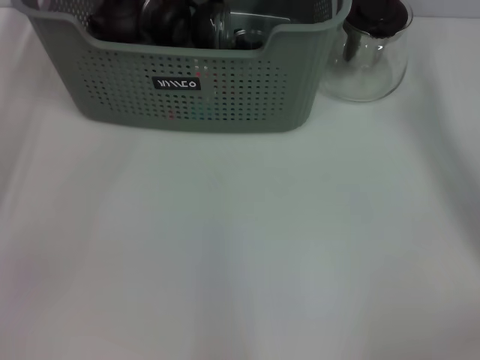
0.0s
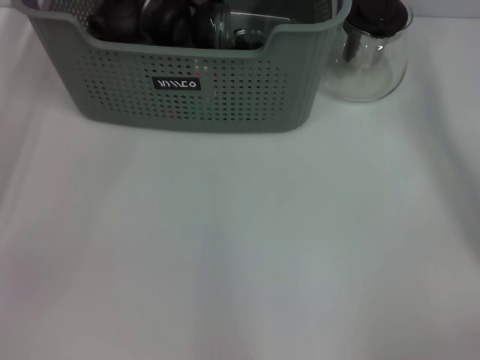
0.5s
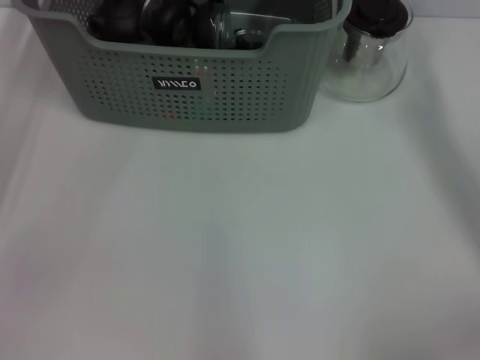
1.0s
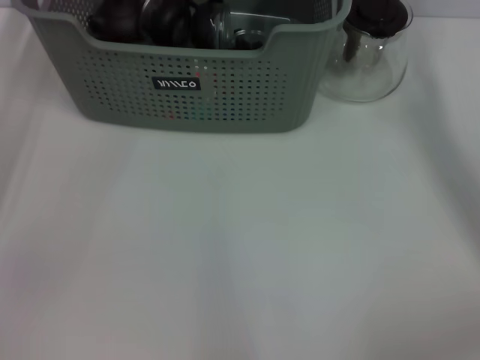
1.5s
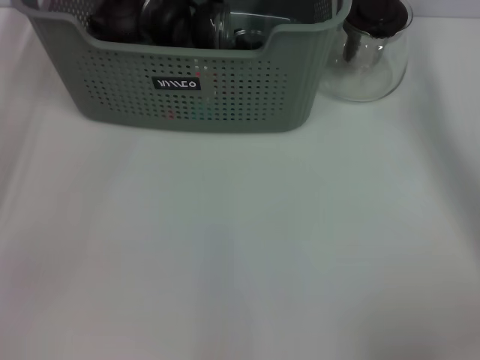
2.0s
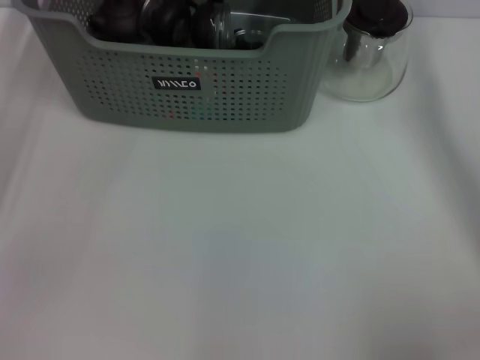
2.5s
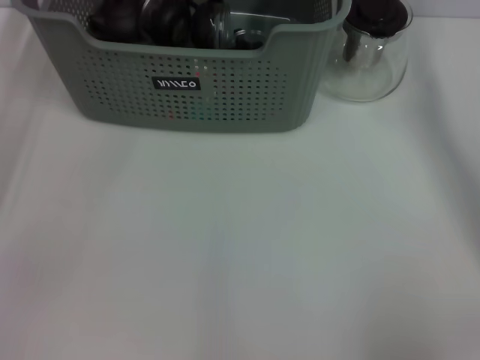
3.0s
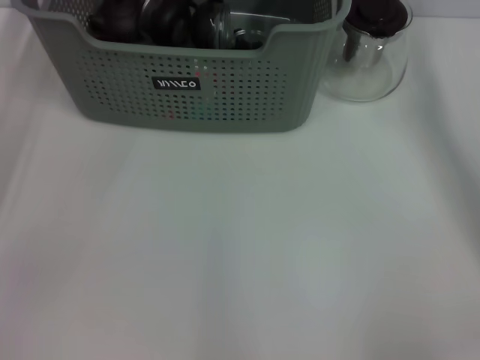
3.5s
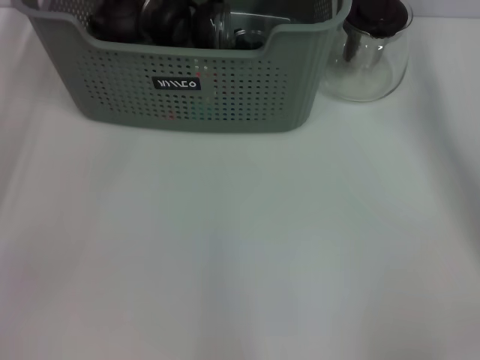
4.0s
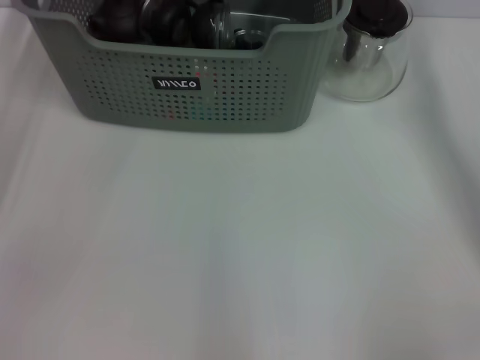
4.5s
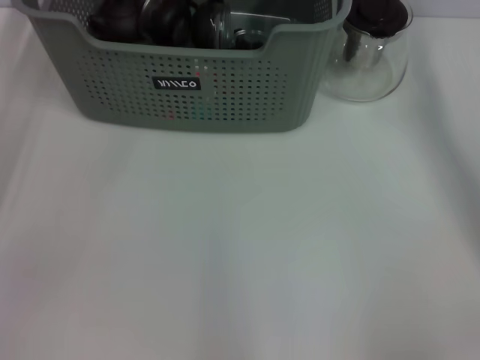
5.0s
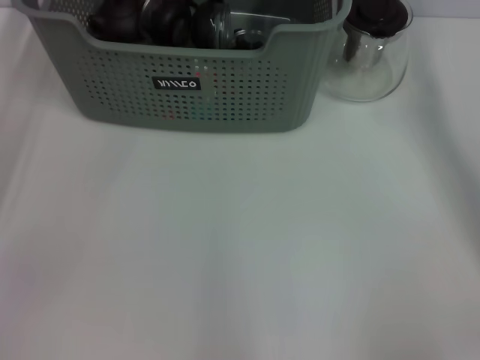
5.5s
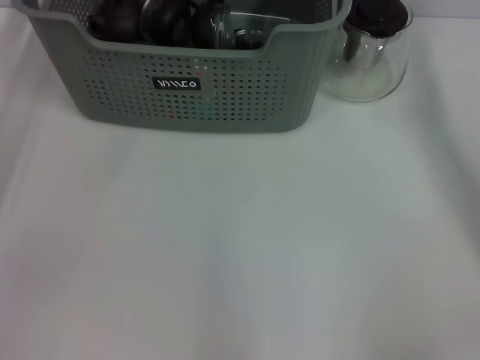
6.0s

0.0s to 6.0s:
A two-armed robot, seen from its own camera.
Task of the whole recording: pick up the teacup on the table and place it into the storage bin, pick up the block on the table and place it into the storage bin.
0.0s to 6.0s: The two grippers keep their place.

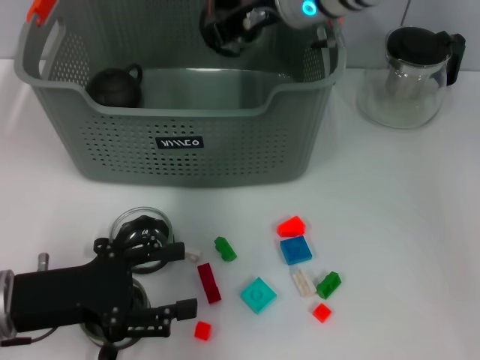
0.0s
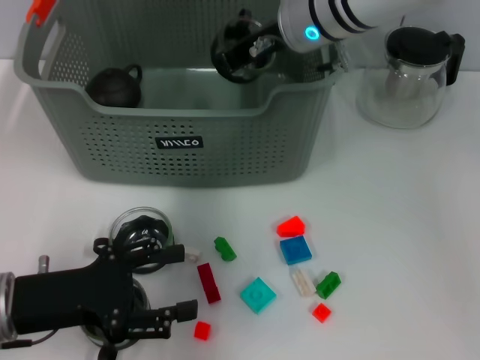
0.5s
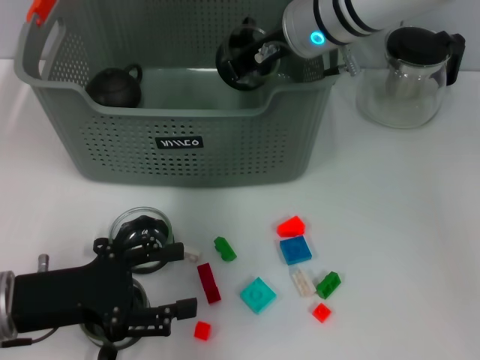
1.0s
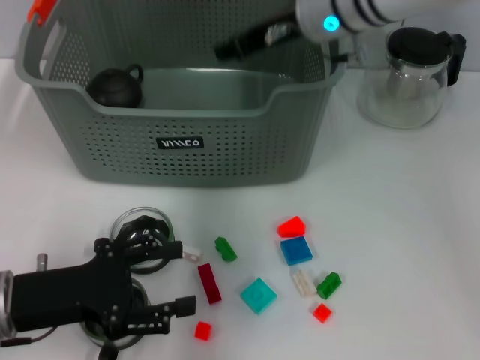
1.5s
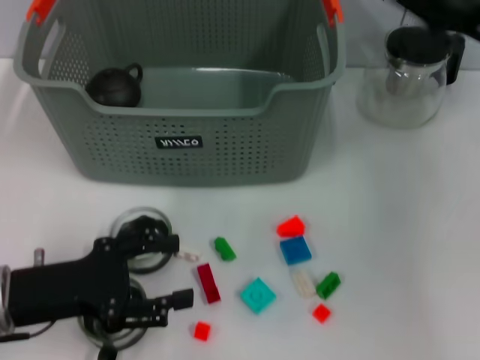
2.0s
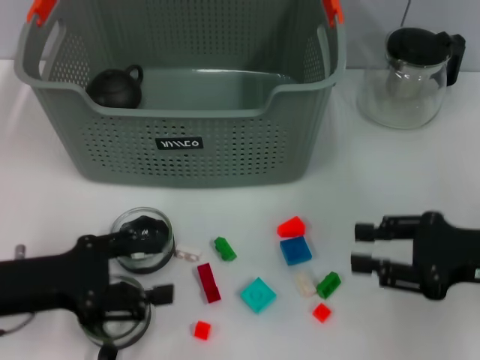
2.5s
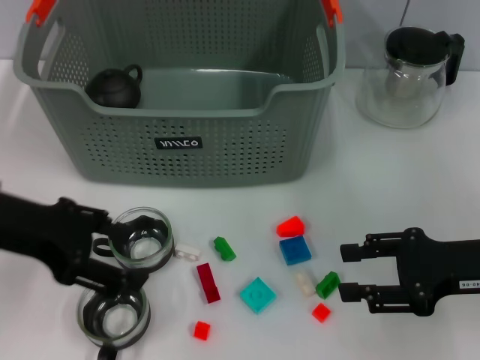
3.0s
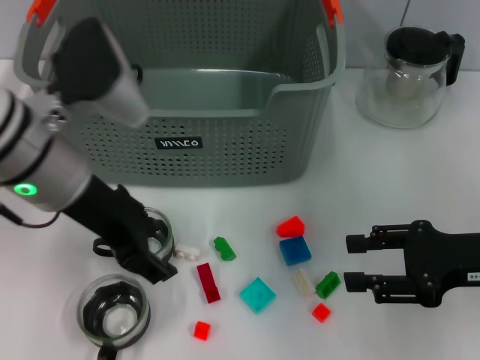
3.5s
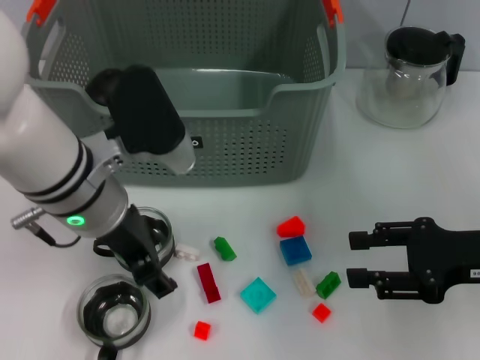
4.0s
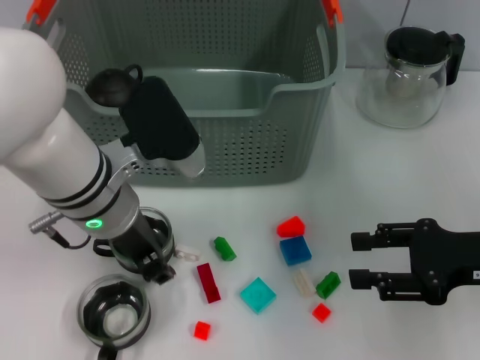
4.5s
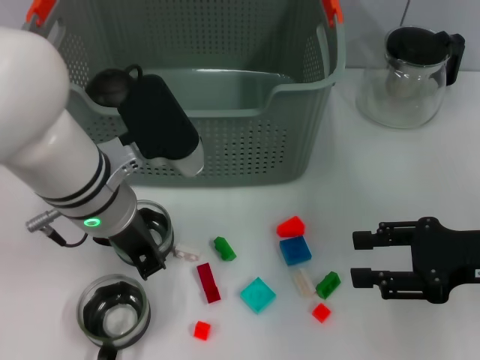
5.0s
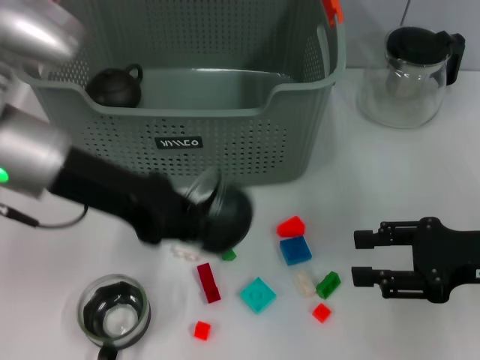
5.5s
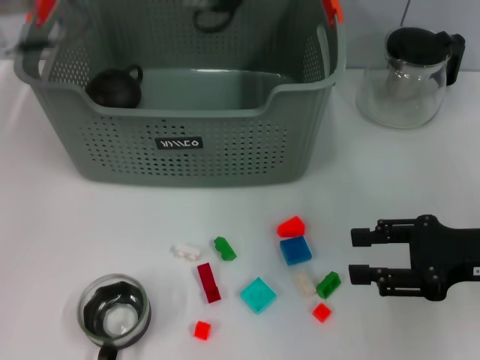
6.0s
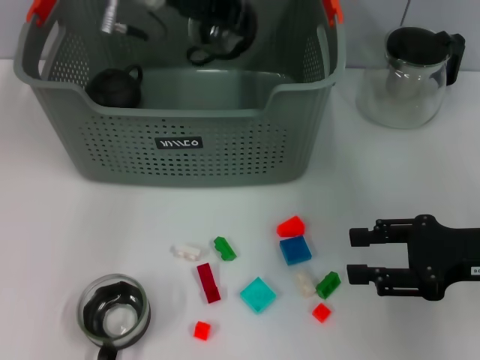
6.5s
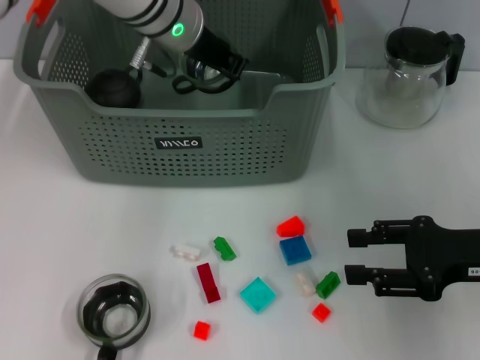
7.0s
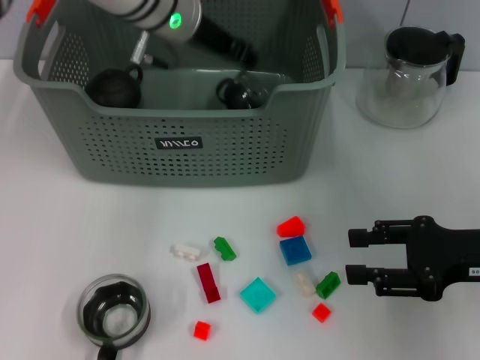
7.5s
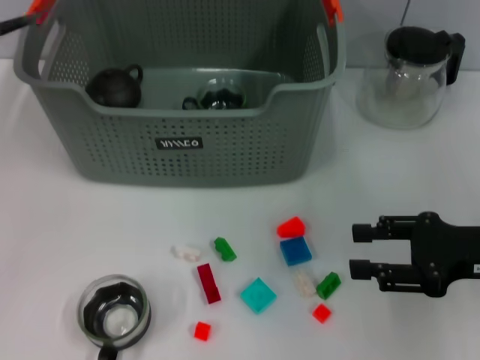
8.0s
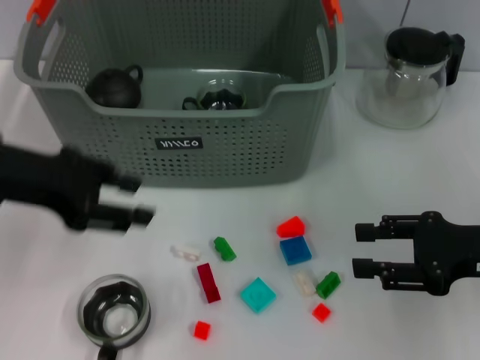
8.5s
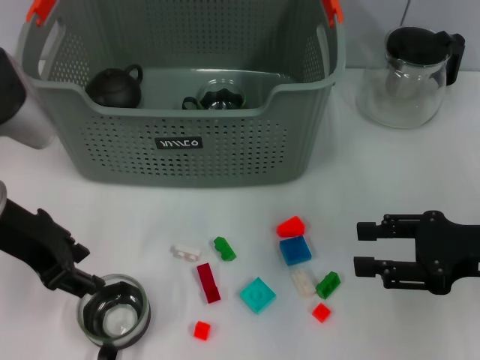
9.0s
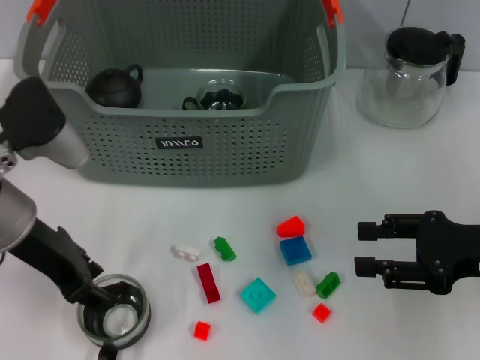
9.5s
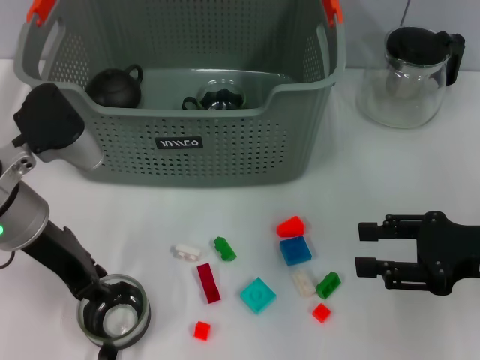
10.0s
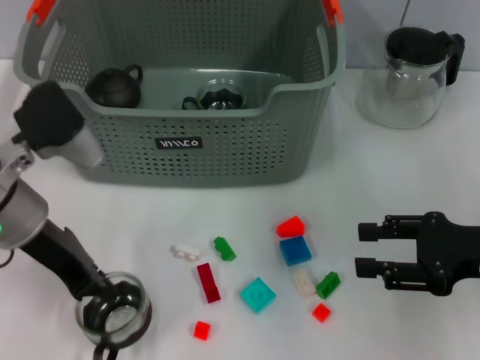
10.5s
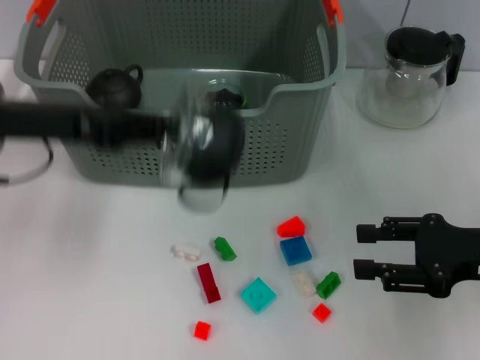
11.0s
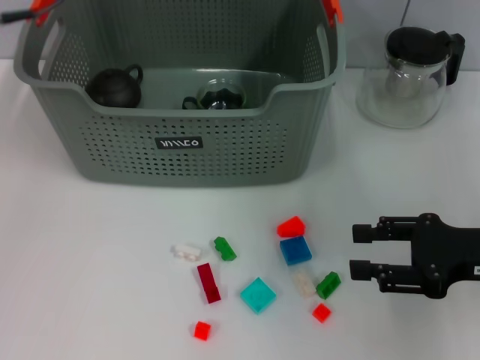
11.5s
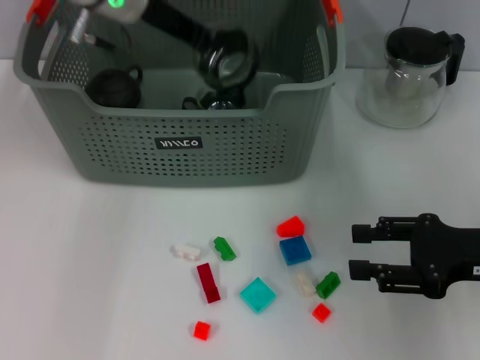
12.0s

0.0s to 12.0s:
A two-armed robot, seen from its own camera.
Task of the whole recording: pick up the teacup on the table and place it into the storage bin, pick up the block on the table and place it into the storage bin.
Step, 2.0s to 4.5s: Grasp the cup with left gripper.
Step, 5.5s to 7.5s: Place the cup in the storage box with left gripper.
Step, 8.0s to 10.0s: Grasp the cup with left gripper.
0.0s to 2.0s: The right gripper shifts approximately 25 cm to the right and backward, and opens its fingers.
2.0s to 4.0s: The left gripper shifts approximately 15 cm to the right, upward and forward, while the right gripper heads downward and backward, covering roughly 10 cm.
4.0s to 6.0s: The left gripper shifts about 15 cm upward, forward and to the left, and closes.
6.0s to 8.0s: The left gripper moves some 10 cm to the right and comes back, and opens its fingers.
8.0s to 10.0s: The left gripper goes some 15 cm downward.
10.0s to 12.0s: The left gripper travels forward, upward and to the right by approximately 20 cm, and closes its fingers.

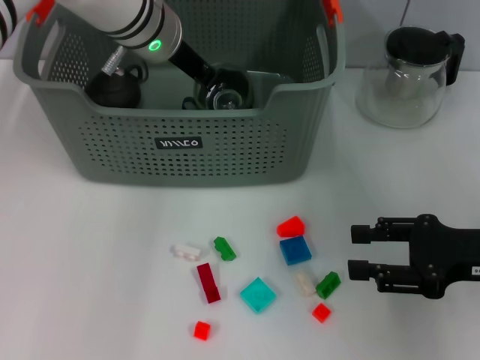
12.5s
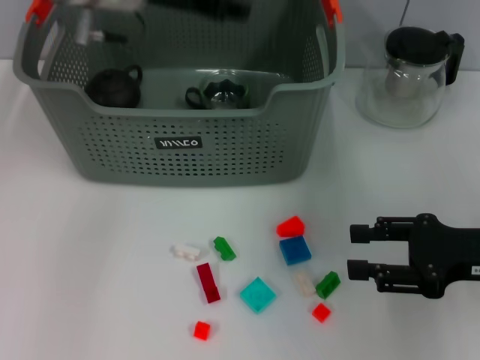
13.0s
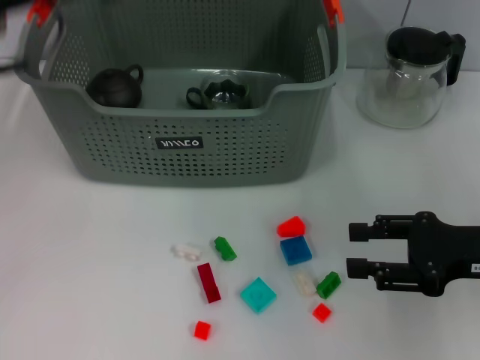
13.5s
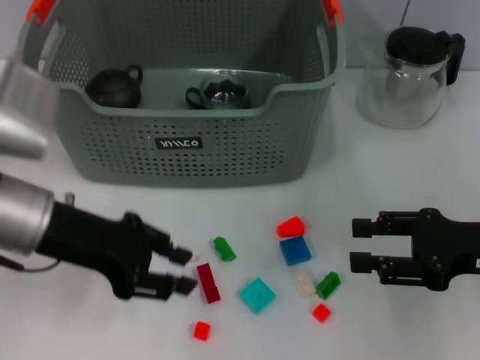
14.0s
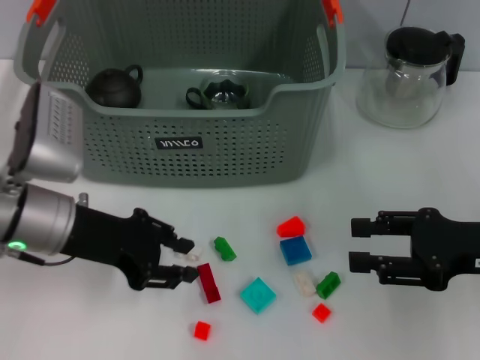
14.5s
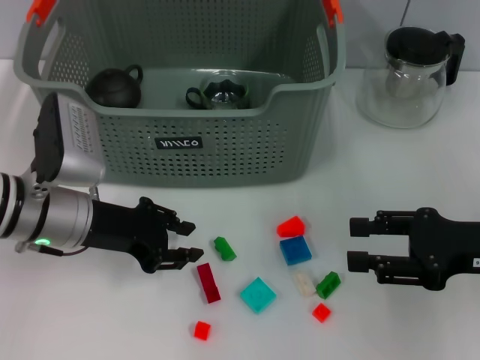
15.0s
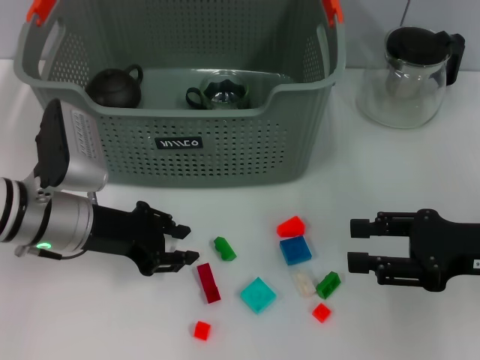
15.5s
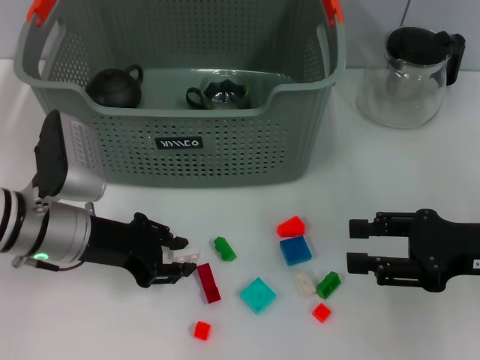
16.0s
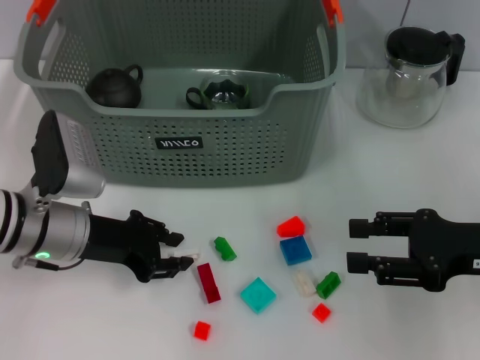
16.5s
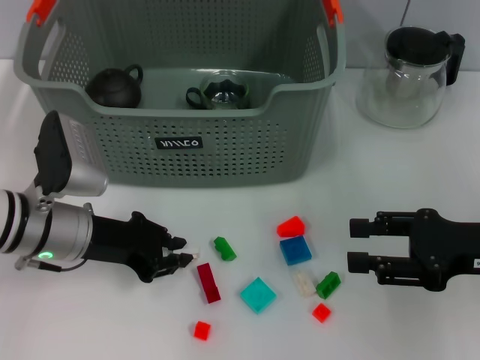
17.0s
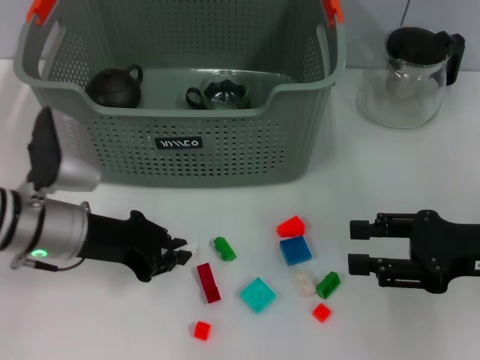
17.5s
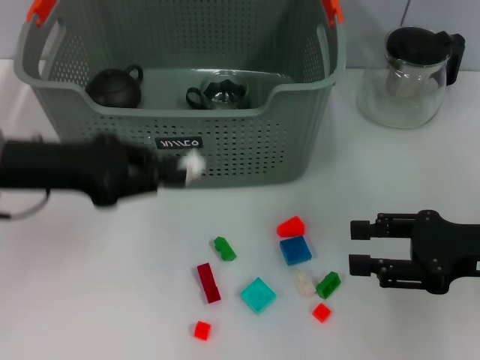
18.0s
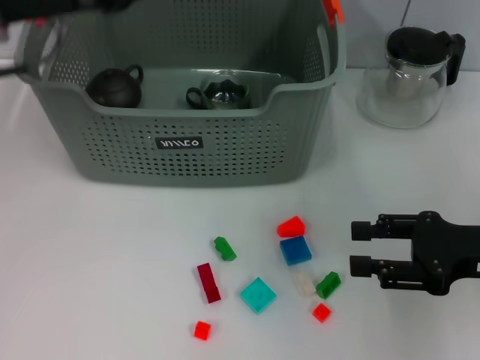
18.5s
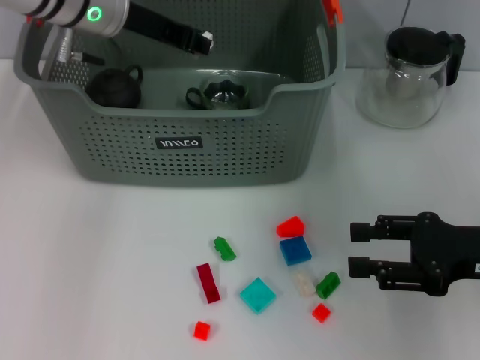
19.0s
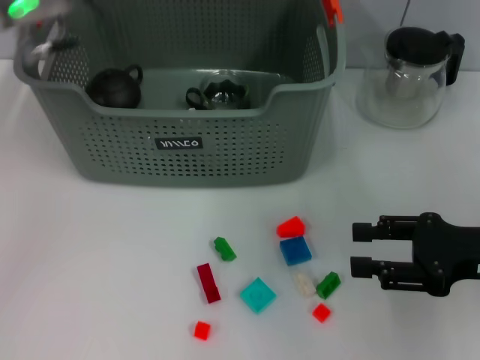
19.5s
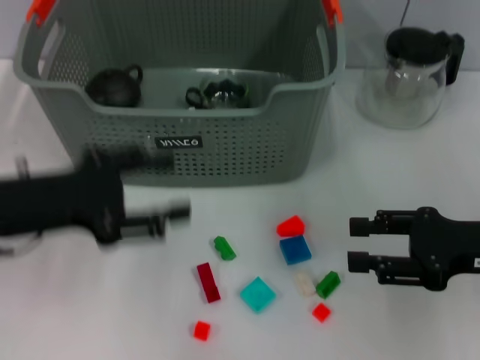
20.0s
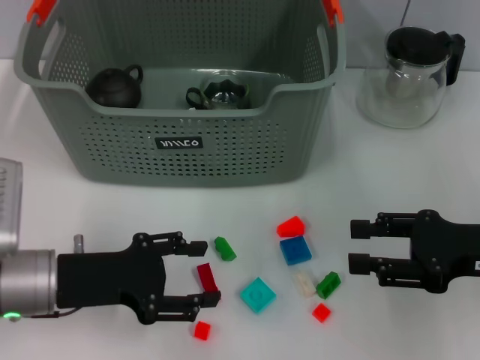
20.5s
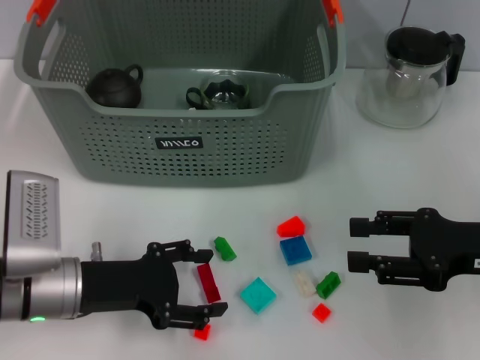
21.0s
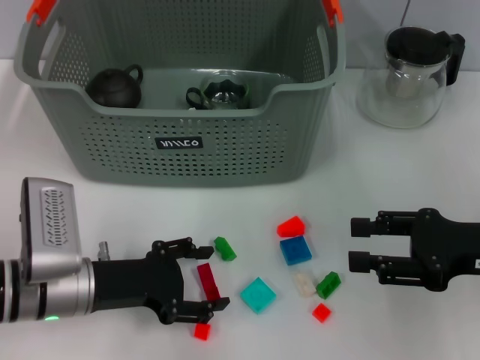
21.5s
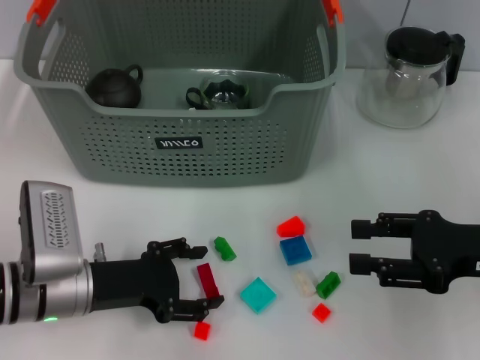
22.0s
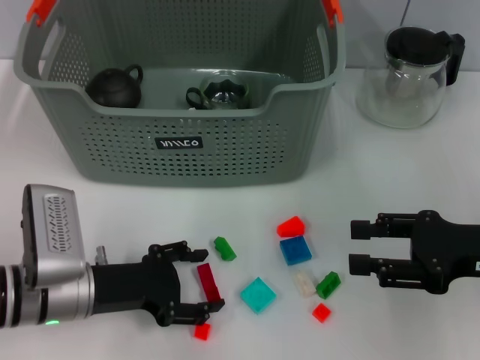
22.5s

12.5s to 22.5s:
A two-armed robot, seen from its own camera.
Task of the whole recording: pick up the teacup on the table and place it into the storage bin, pick up the block on the table and place it into the storage bin.
Step, 13.0s to 17.0s: Grasp the white block with left gripper.
Step, 17.5s to 19.0s: Place the white block in the storage box with left gripper.
12.5s to 14.5s: The left gripper goes approximately 20 cm backward, to the left and downward.
14.5s to 16.5s: There are only small adjustments of the grippers.
16.5s to 18.5s: The left gripper shifts approximately 20 cm upward.
18.5s to 20.5s: The left gripper moves downward and backward, some 20 cm, and opens up.
20.5s to 22.5s: The left gripper moves about 5 cm.
